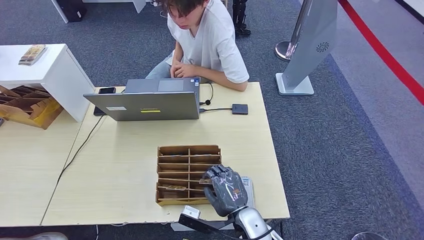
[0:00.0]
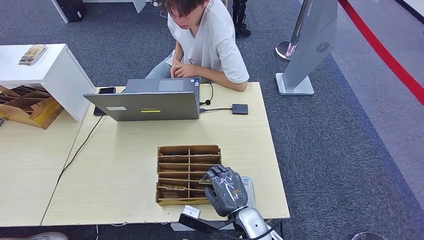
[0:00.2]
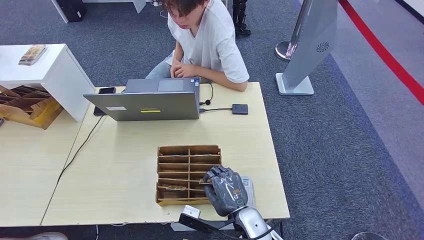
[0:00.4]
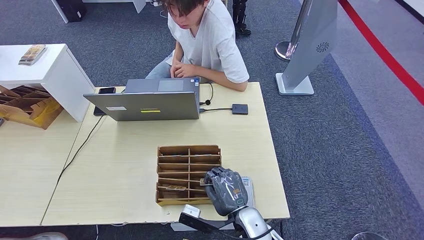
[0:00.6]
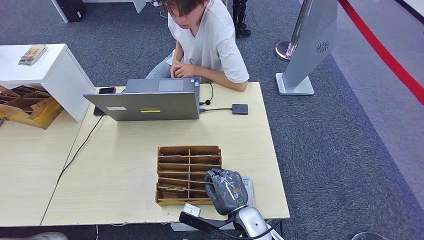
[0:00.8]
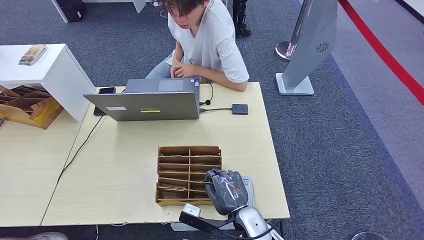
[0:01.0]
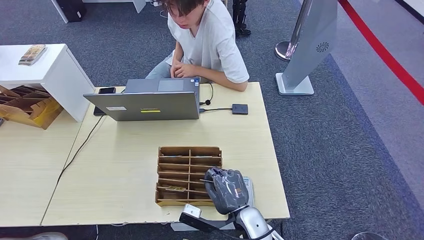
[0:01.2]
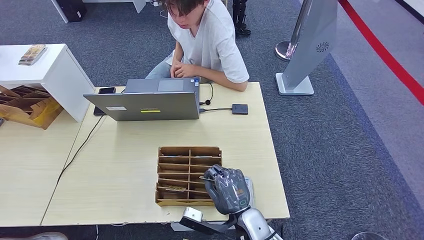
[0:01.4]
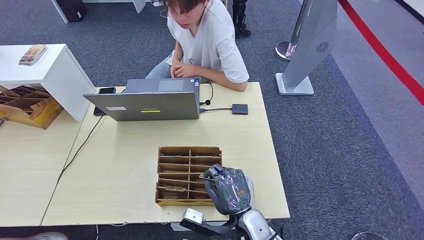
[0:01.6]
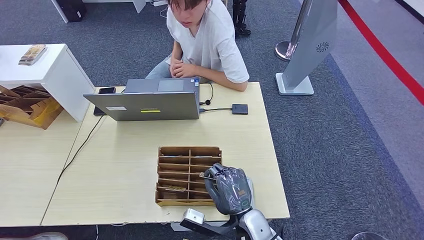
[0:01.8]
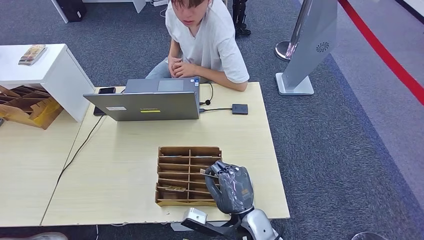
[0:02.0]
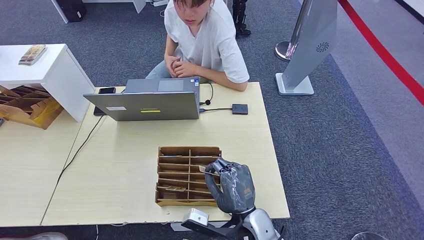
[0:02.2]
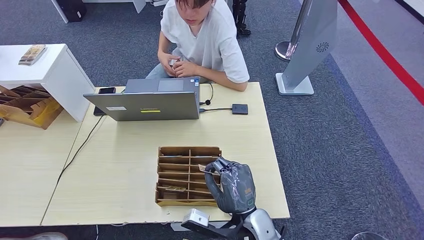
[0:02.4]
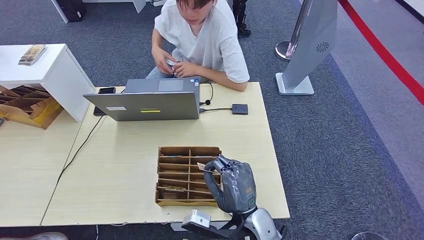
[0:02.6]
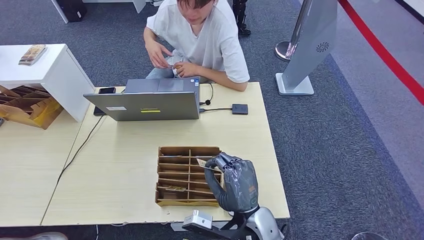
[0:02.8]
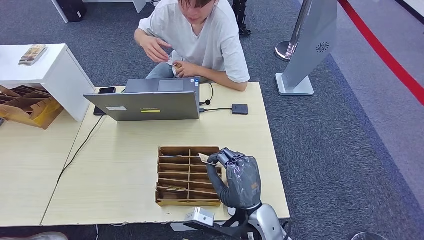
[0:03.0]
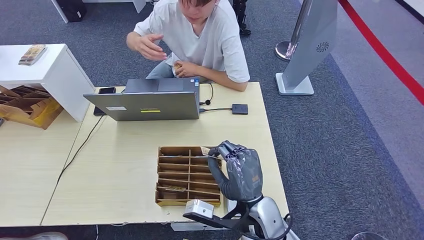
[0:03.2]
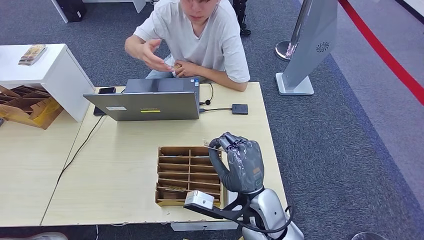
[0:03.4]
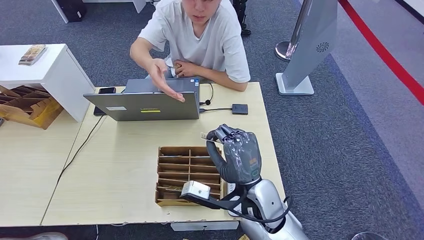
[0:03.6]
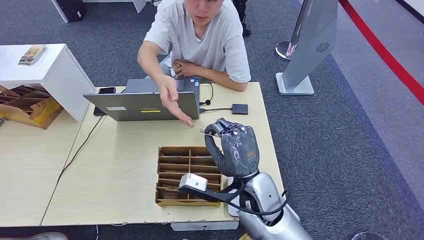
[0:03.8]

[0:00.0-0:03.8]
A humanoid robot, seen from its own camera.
Step, 0:00.0 to 0:02.0: Pick up the room key from the key card box.
Step, 0:02.2 to 0:03.8: Hand the room key to the person.
0:00.0 to 0:01.2: Neither hand changes place.
0:02.6 to 0:03.8: The right hand moves forward and upward, some 10 cm.
